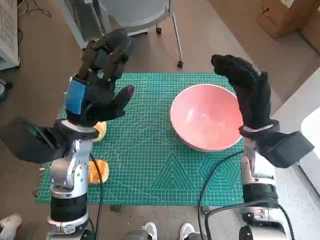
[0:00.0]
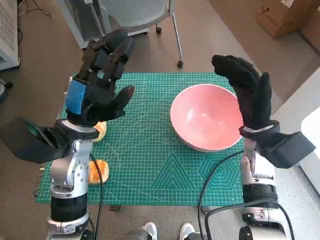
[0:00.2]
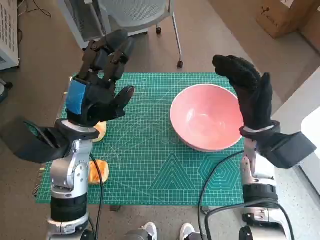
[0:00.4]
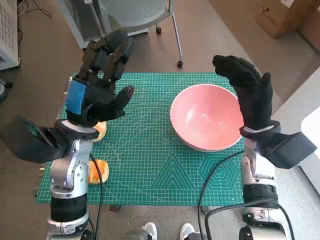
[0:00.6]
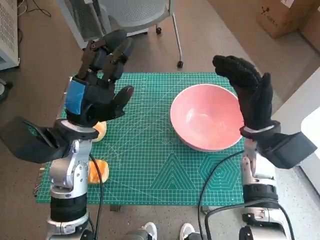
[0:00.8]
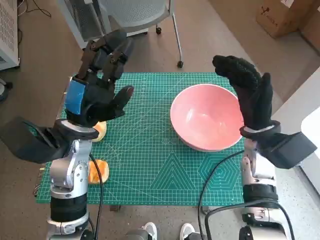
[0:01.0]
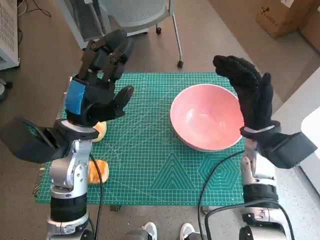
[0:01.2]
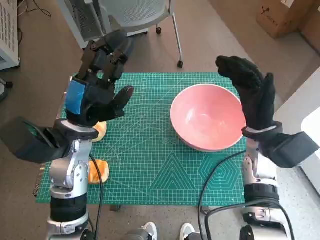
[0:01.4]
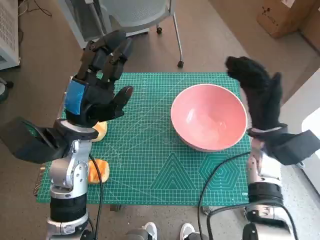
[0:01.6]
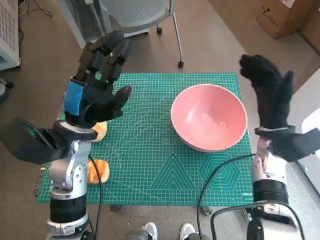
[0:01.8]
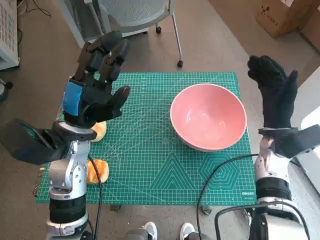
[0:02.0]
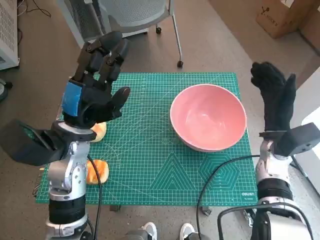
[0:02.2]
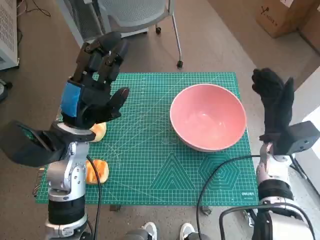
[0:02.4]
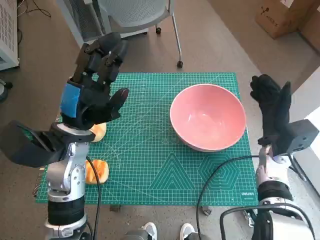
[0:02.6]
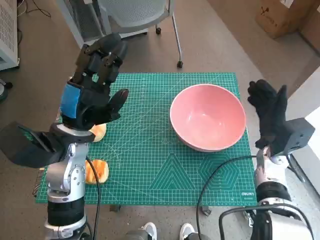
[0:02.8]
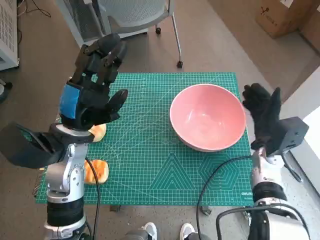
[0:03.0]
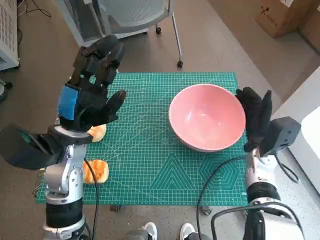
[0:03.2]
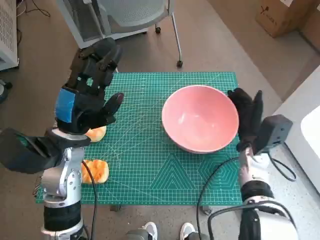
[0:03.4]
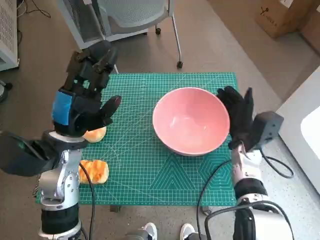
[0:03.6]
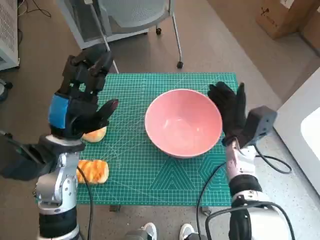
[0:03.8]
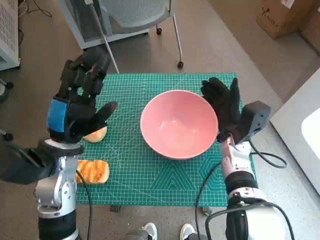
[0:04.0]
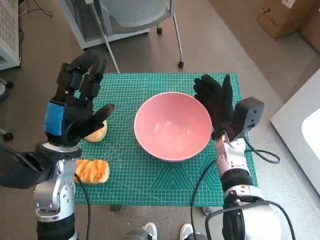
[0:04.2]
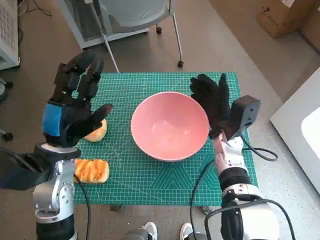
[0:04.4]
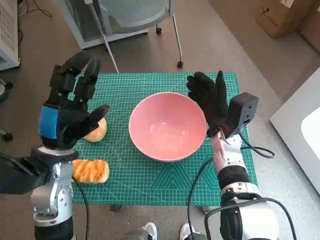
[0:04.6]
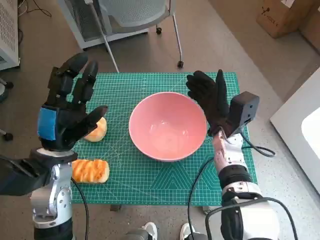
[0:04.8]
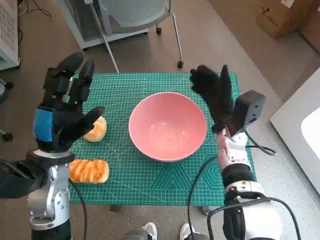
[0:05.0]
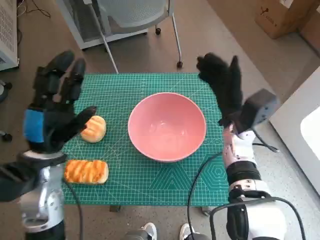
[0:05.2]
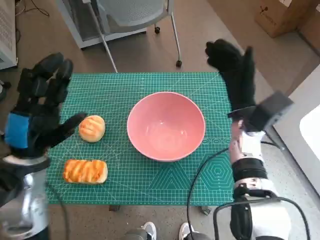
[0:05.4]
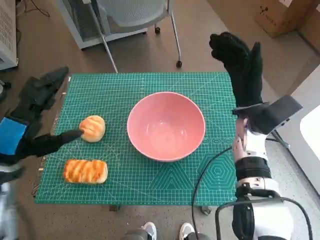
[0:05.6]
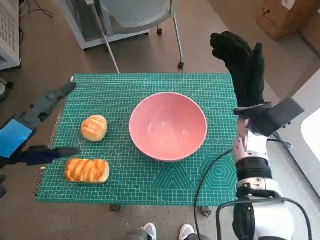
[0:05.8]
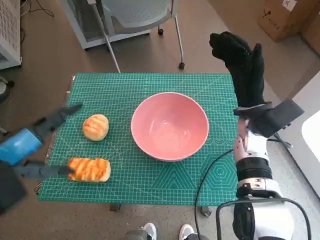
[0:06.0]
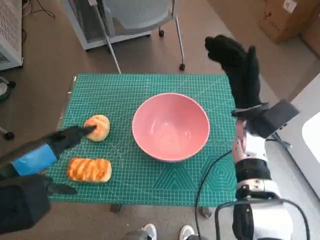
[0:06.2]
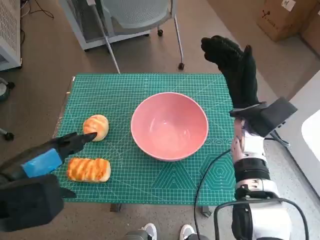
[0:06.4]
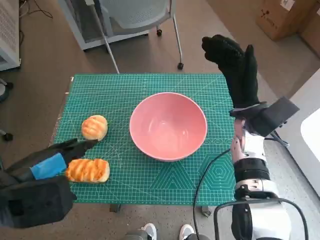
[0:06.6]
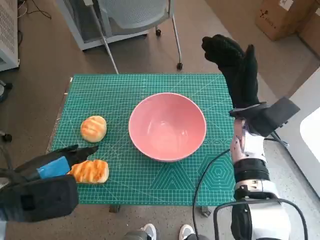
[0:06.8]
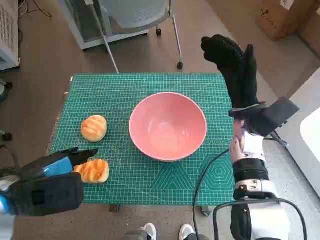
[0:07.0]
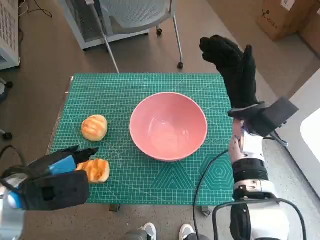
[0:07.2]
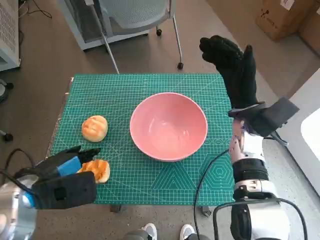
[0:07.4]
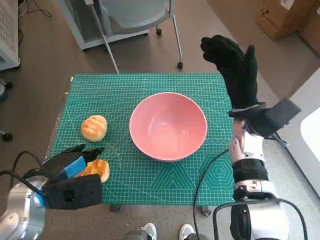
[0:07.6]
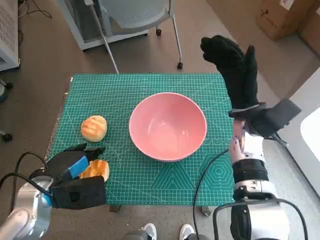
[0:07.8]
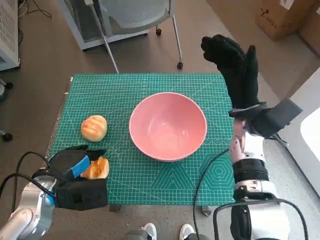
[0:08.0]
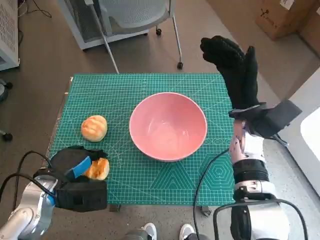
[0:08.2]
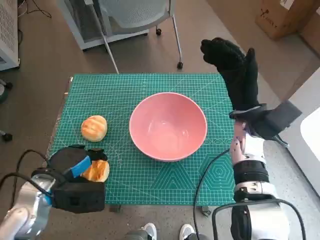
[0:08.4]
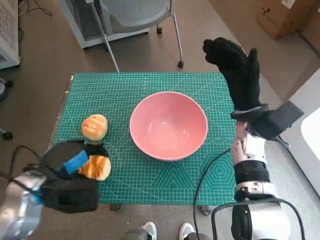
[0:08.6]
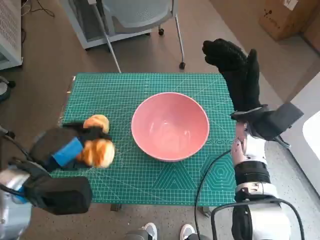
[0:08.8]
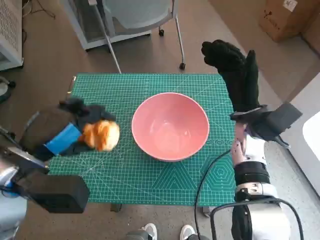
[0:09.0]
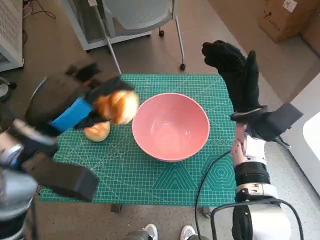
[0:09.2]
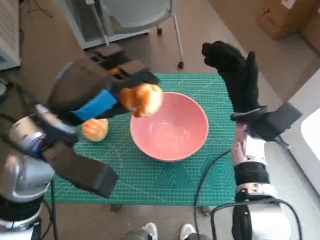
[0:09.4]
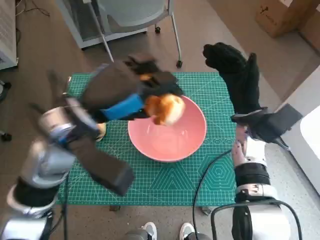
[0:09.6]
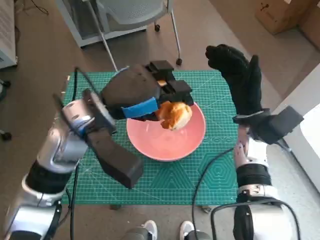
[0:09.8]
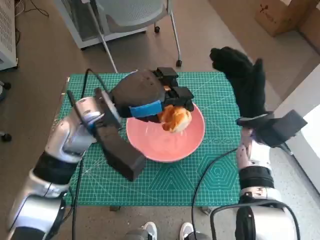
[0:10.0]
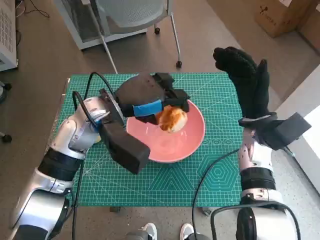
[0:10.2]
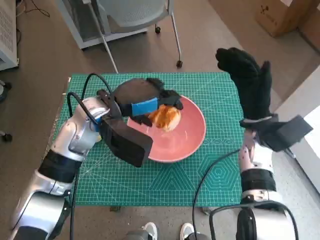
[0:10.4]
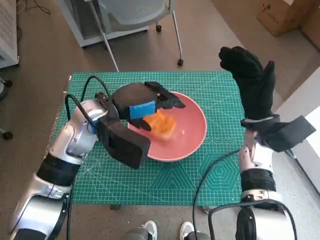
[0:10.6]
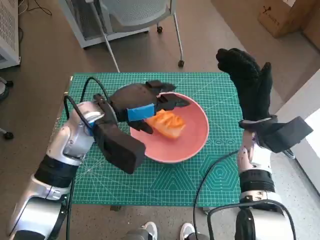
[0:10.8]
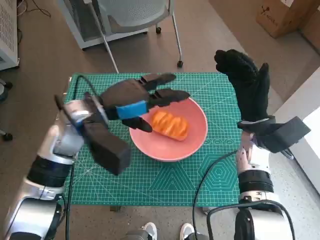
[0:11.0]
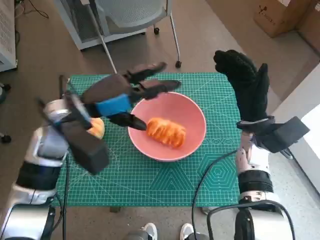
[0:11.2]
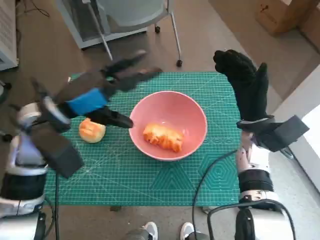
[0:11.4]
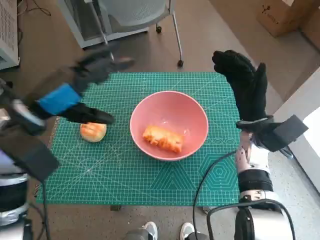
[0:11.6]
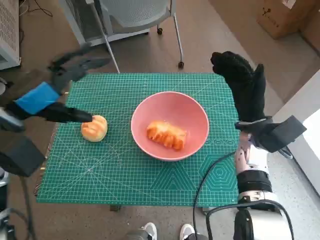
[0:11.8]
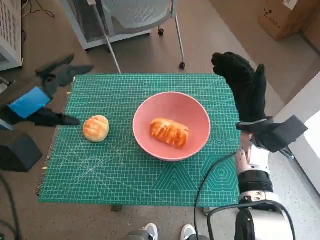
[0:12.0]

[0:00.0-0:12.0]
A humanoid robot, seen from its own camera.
Step, 0:00.0 to 0:04.8: Move the pink bowl to the center of table with right hand.
Step, 0:05.0 to 0:08.2: Grasp the long bread with left hand.
Step, 0:08.4 to 0:10.8: Place the long bread in pink bowl with left hand.
0:01.6 to 0:03.0: The right hand travels downward by roughly 5 cm.
0:03.0 to 0:04.4: The right hand shifts approximately 10 cm to the left.
0:04.4 to 0:06.0: The left hand travels upward, backward and to the left by some 10 cm. The right hand moves upward, roughly 5 cm.
0:06.0 to 0:07.6: The left hand shifts about 10 cm downward.
0:07.6 to 0:09.0: The left hand shifts roughly 5 cm upward.
0:09.0 to 0:10.4: The left hand moves forward and to the right, approximately 15 cm.
0:10.4 to 0:12.0: The left hand goes about 15 cm to the left and backward.

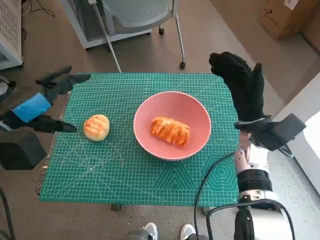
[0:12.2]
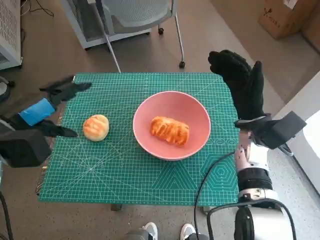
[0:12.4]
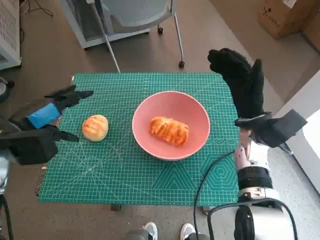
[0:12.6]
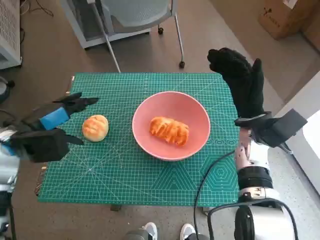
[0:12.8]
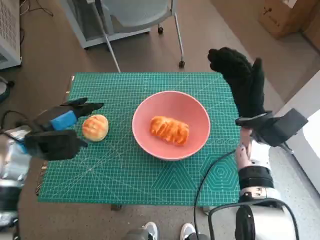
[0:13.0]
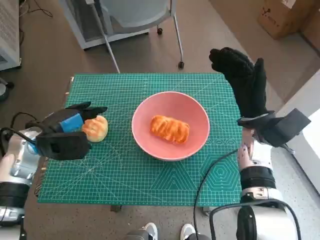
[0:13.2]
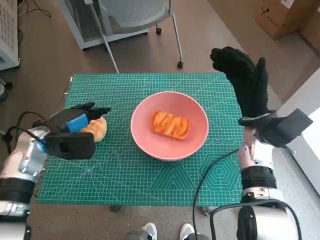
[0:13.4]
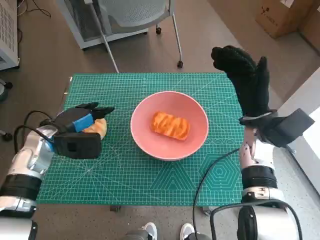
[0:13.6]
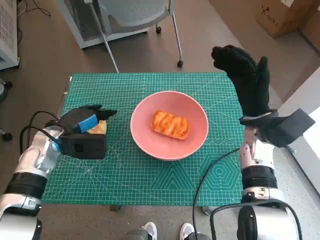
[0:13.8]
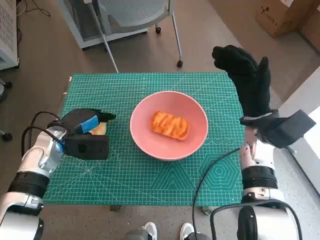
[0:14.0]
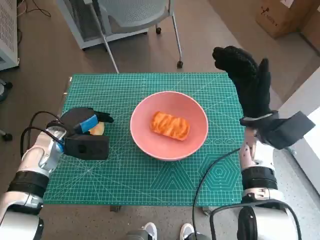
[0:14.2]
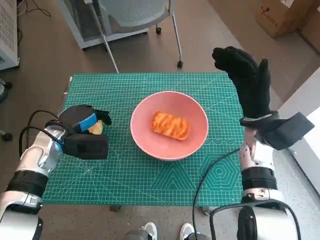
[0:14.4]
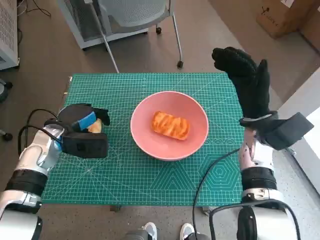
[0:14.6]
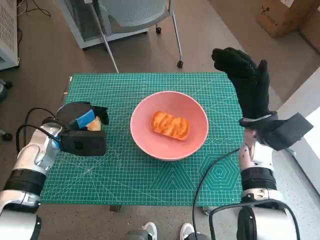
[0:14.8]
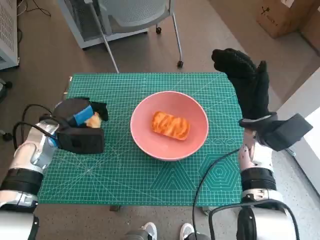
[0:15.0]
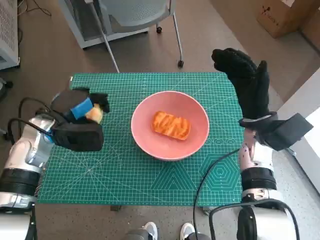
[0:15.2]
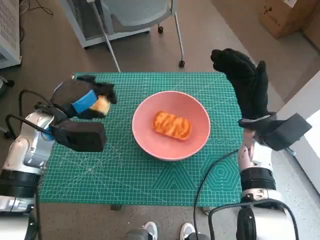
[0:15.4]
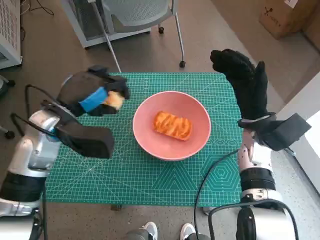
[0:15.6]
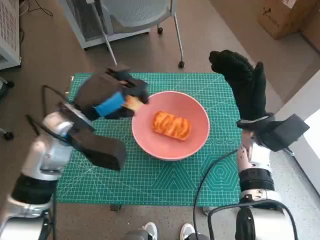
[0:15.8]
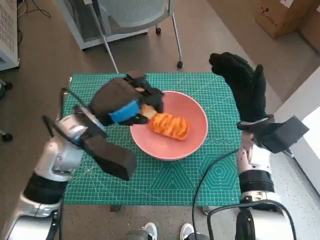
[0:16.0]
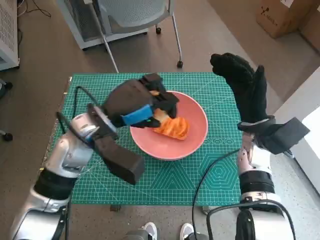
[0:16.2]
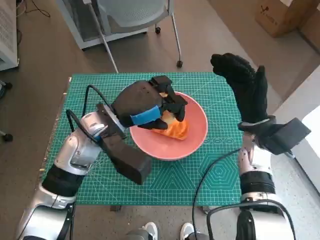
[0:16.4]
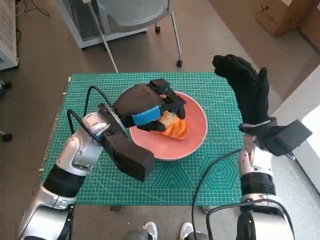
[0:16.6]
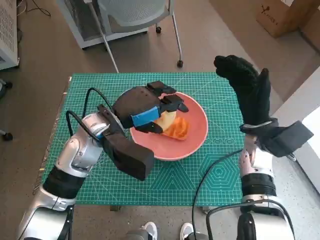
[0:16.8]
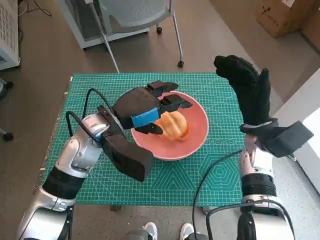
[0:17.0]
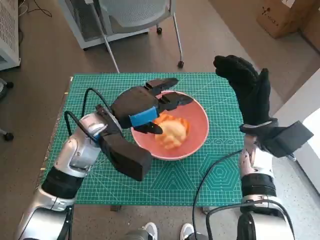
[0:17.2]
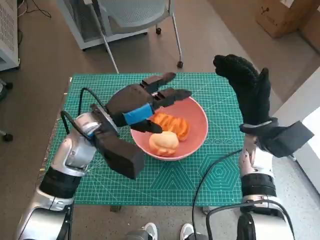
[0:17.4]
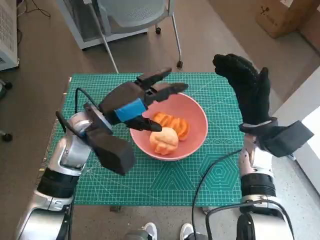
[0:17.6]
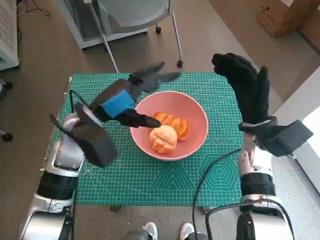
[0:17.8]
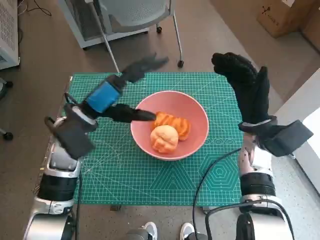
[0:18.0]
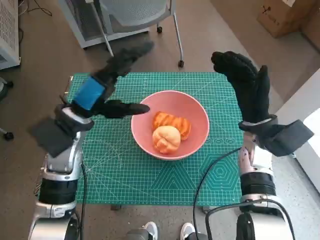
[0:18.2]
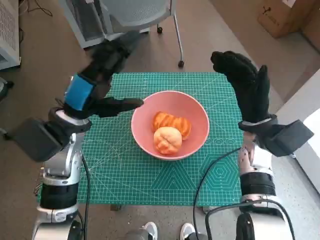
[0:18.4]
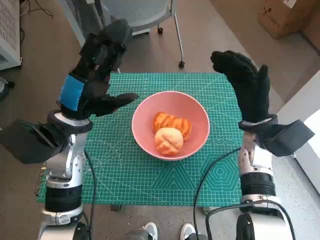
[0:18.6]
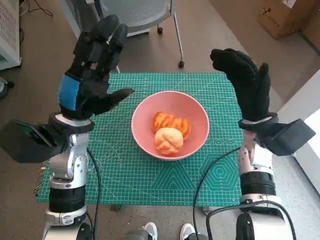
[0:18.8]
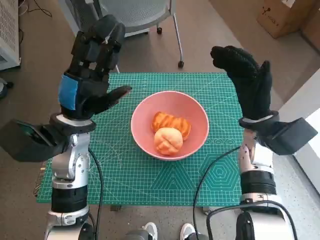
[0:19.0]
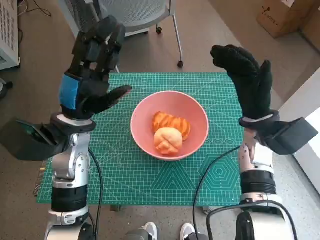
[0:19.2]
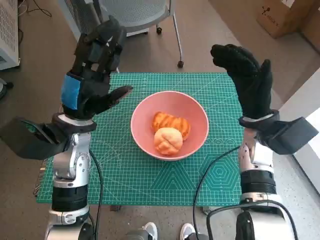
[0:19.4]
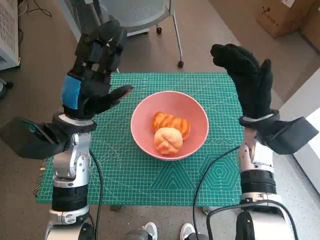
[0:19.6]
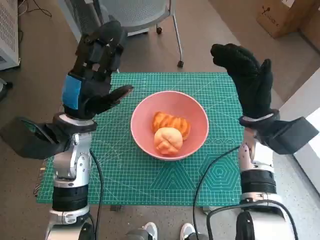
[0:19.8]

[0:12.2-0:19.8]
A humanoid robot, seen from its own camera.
Step, 0:12.2 to 0:14.4: Grasp the round bread with left hand.
Step, 0:14.6 to 0:17.0: Place the round bread in pink bowl with left hand.
0:12.2 to 0:13.8: The left hand goes about 15 cm downward and forward.
0:13.8 to 0:15.2: The hands move only a little.
0:15.2 to 0:16.8: The left hand shifts about 15 cm to the right.
0:16.8 to 0:18.2: The left hand travels to the left by approximately 5 cm.
